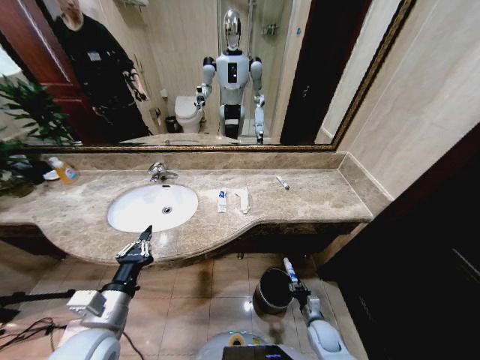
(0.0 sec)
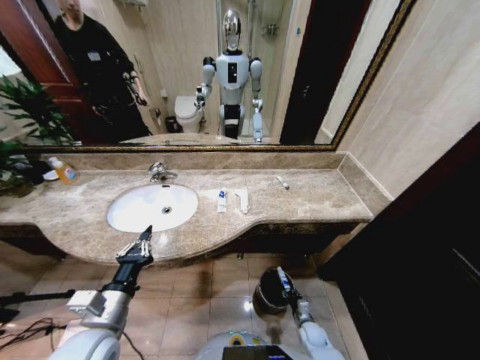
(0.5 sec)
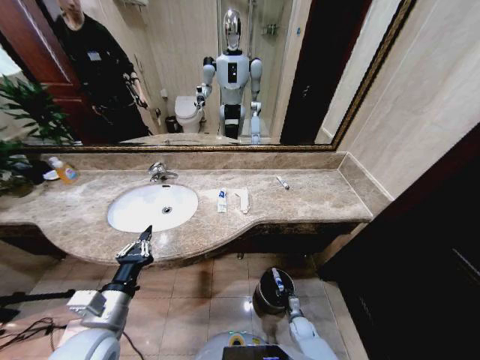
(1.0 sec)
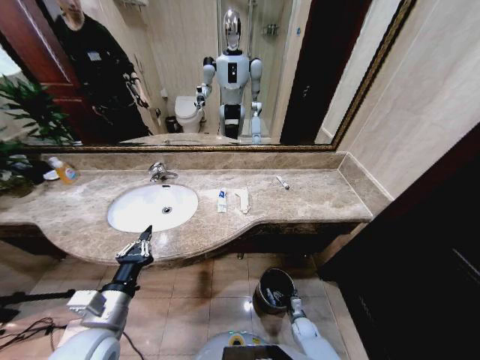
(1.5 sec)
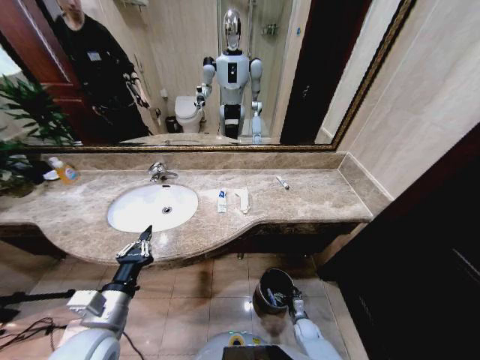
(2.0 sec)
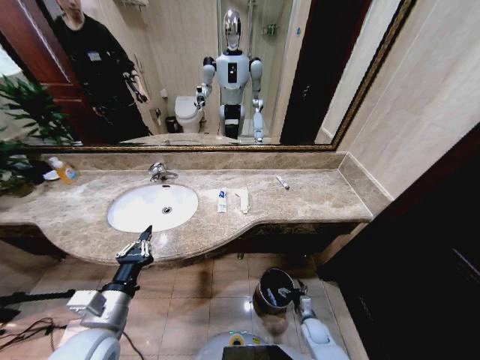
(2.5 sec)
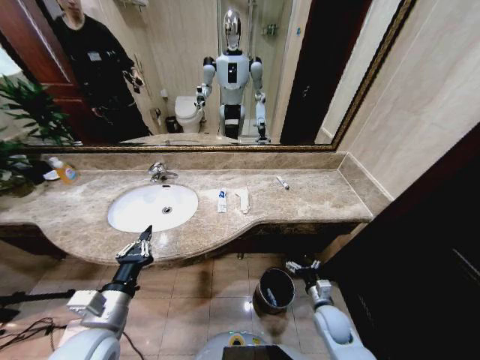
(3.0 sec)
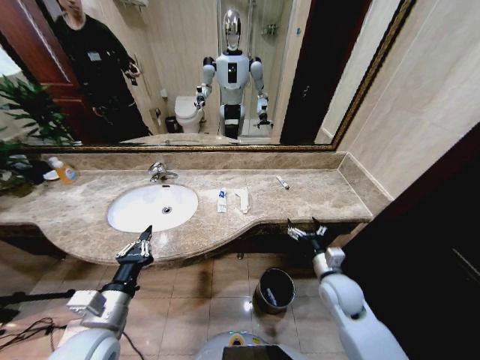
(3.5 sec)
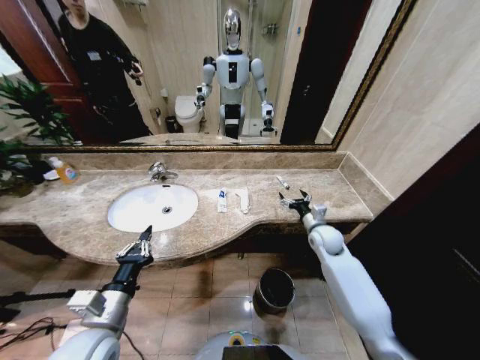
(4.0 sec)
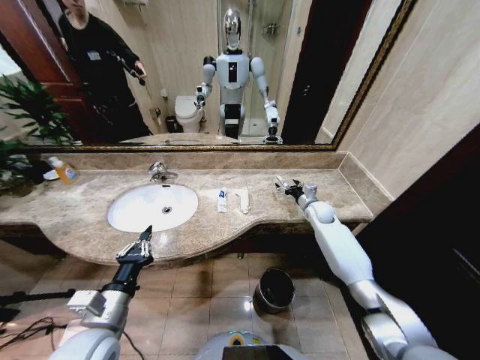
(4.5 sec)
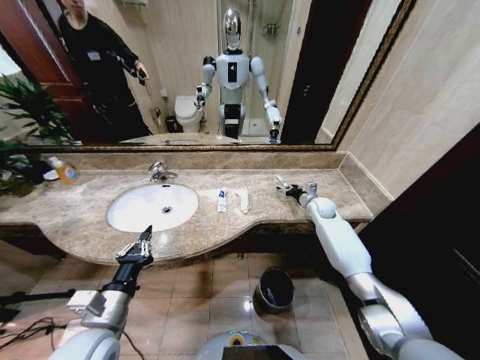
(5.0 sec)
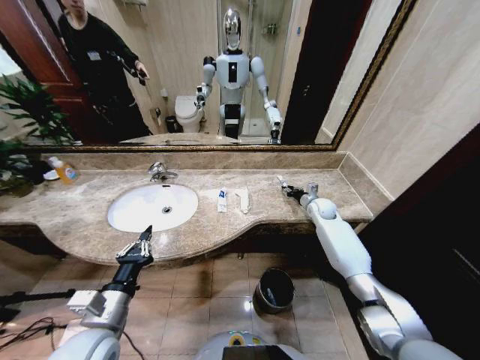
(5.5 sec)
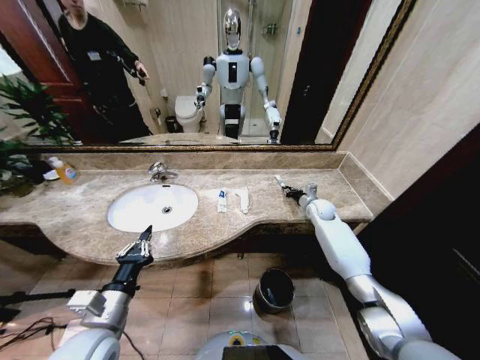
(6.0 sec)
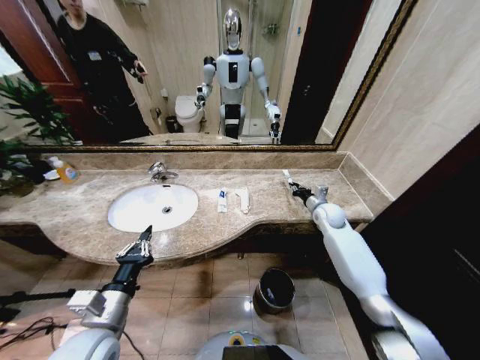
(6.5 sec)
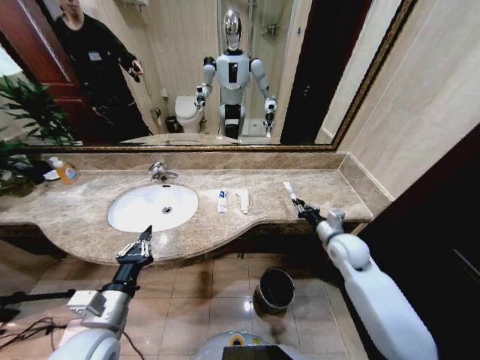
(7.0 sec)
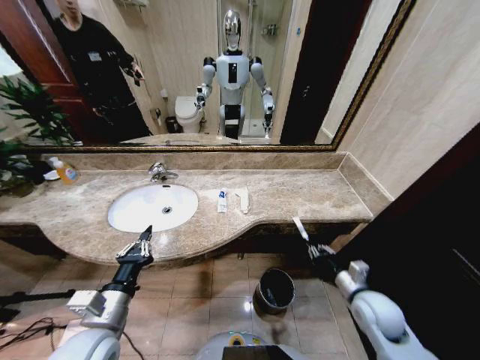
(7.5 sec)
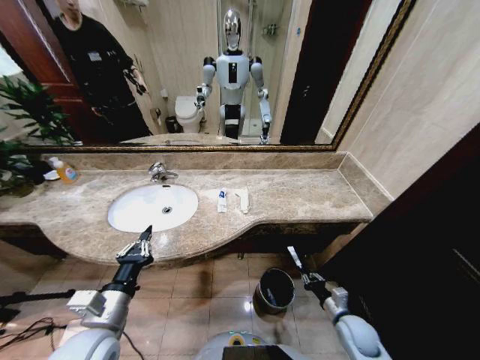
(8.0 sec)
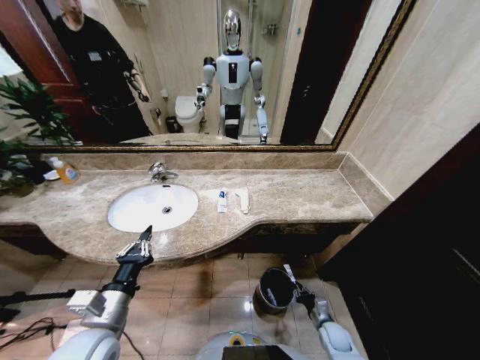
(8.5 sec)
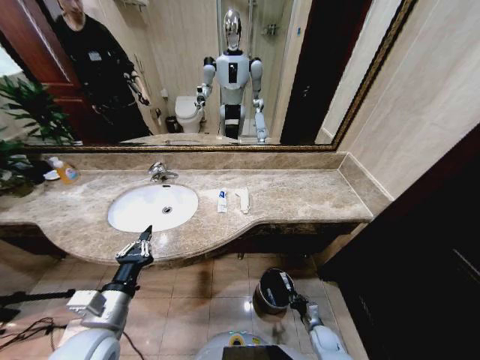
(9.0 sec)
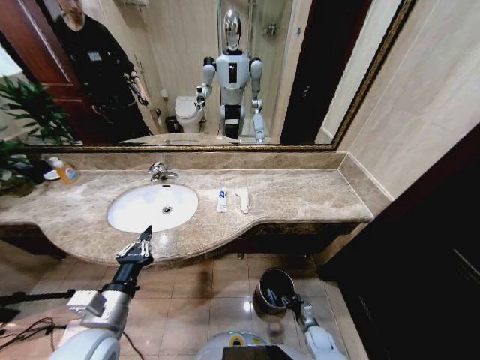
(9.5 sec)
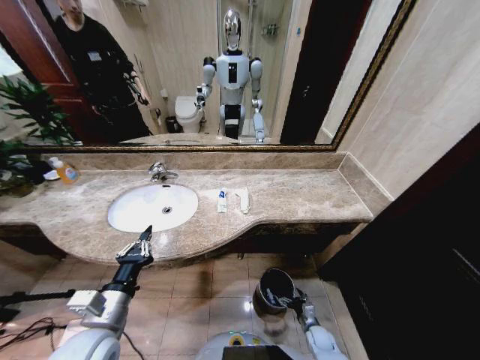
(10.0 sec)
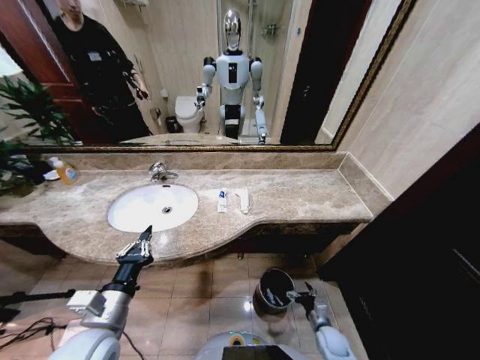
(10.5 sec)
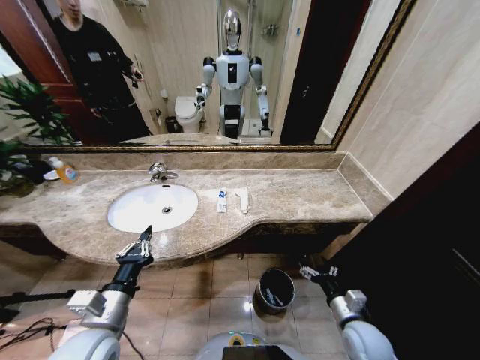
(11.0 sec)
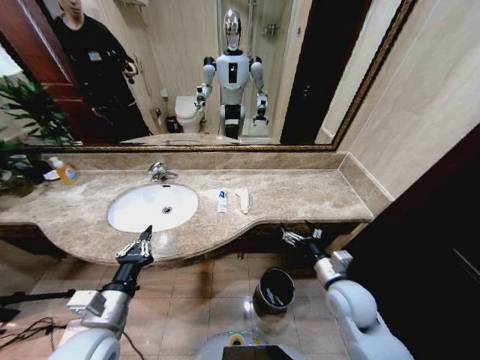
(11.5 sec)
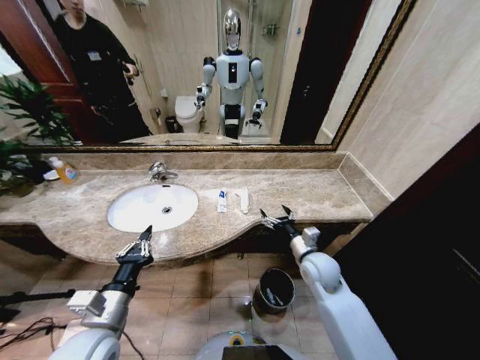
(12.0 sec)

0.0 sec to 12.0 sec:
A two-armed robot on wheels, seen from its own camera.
Task of the whole recording: Pick up the trash from the sink and place it in the trash bin.
0.0 sec to 2.0 sec: The right gripper goes roughly 10 cm downward, and opens.
2.0 sec to 4.0 sec: The right gripper is displaced upward and forward by approximately 40 cm.
4.0 sec to 6.0 sec: The right gripper heads forward, covering some 15 cm, and closes up.
6.0 sec to 8.0 sec: The right gripper travels backward and downward by about 40 cm.
8.0 sec to 10.0 sec: The right gripper shifts about 15 cm downward, and opens up.
10.0 sec to 12.0 sec: The right gripper is displaced upward by some 35 cm.

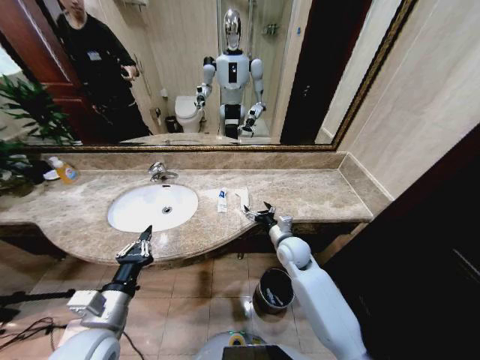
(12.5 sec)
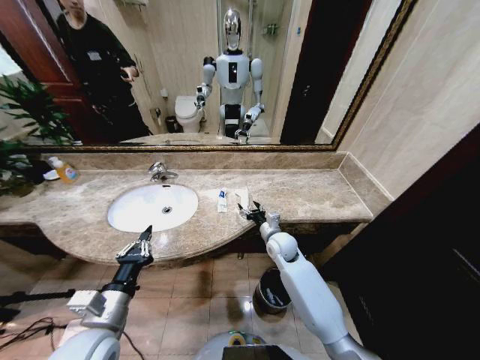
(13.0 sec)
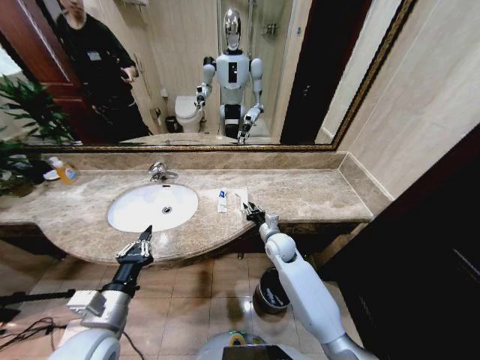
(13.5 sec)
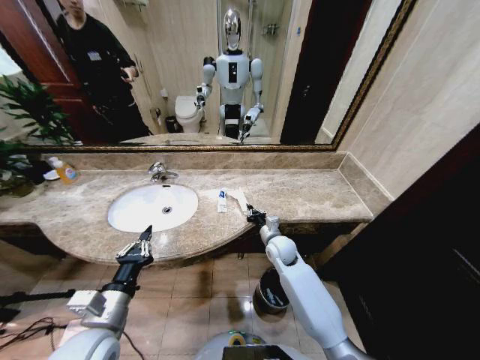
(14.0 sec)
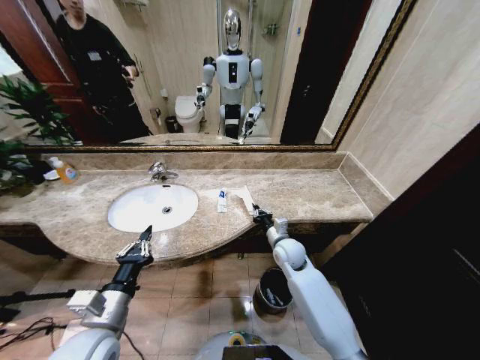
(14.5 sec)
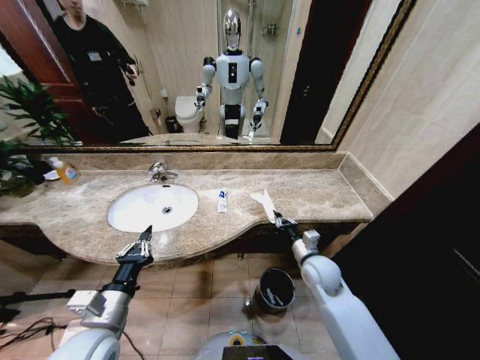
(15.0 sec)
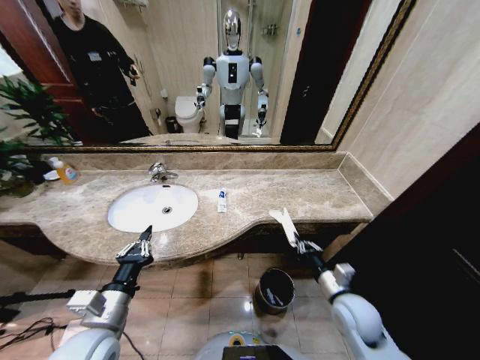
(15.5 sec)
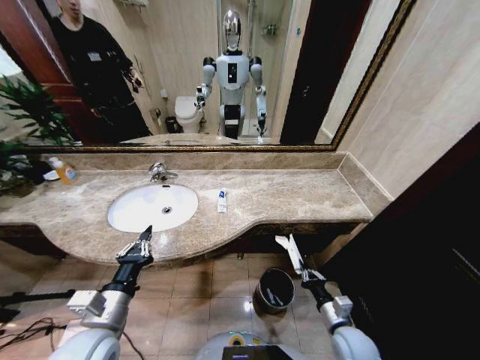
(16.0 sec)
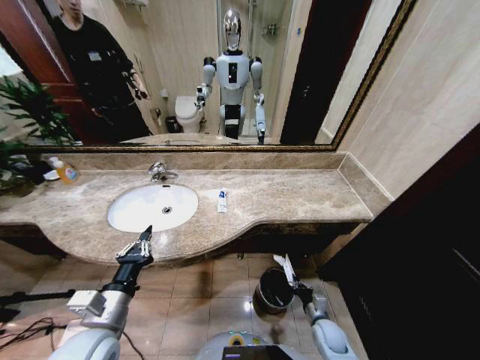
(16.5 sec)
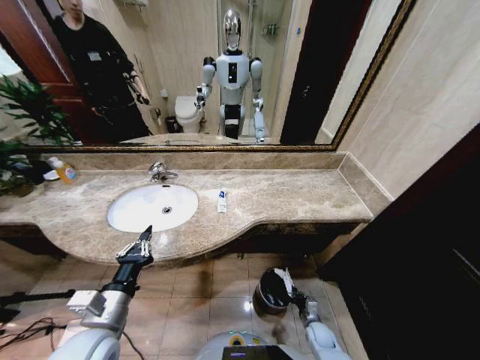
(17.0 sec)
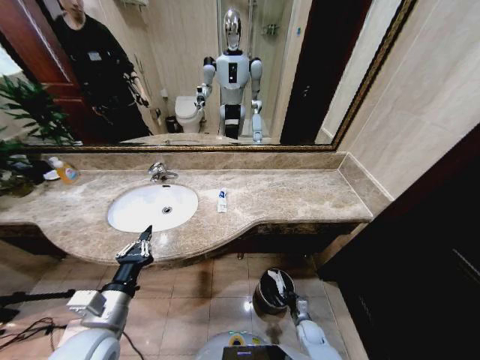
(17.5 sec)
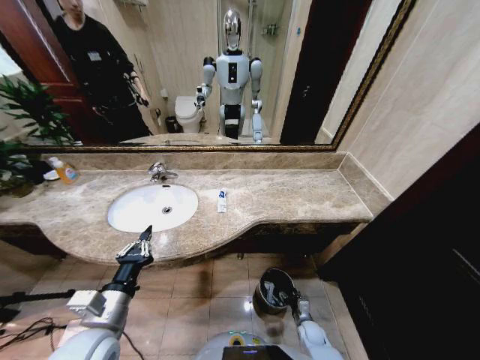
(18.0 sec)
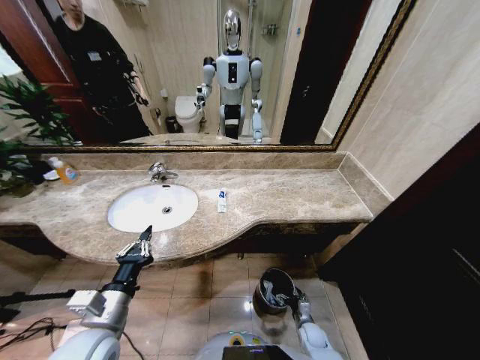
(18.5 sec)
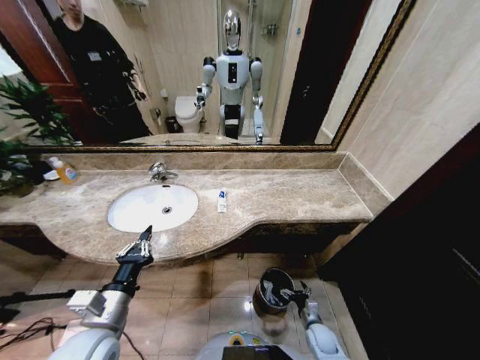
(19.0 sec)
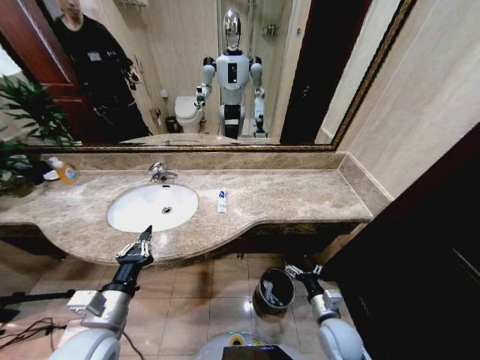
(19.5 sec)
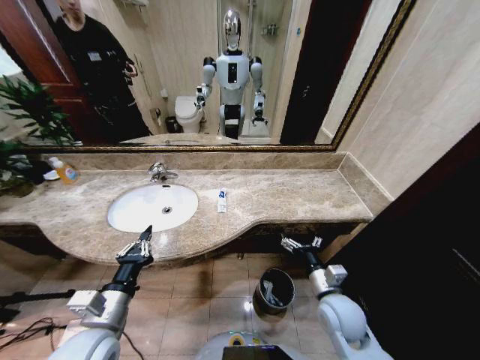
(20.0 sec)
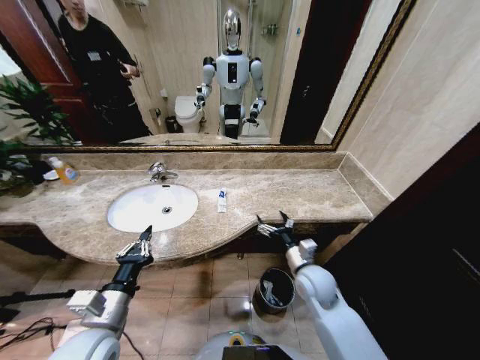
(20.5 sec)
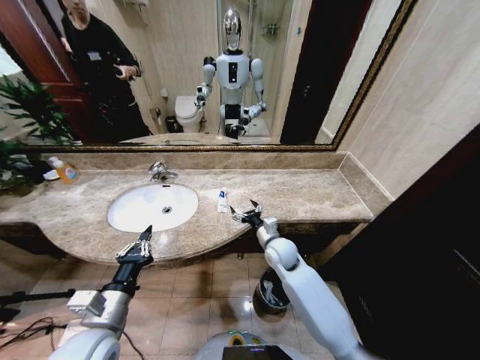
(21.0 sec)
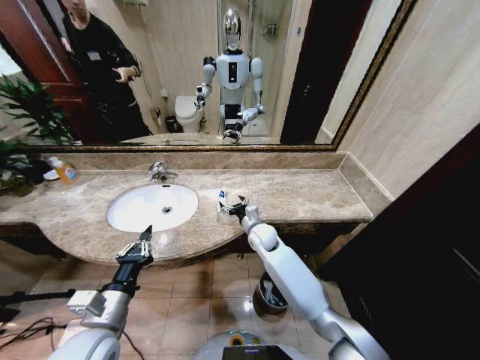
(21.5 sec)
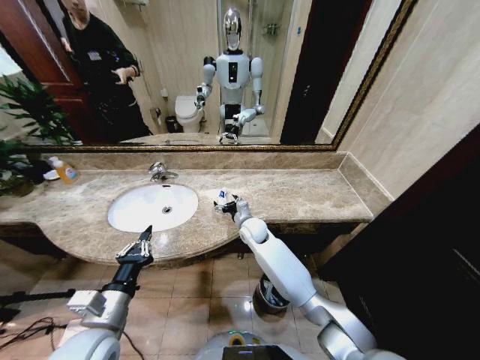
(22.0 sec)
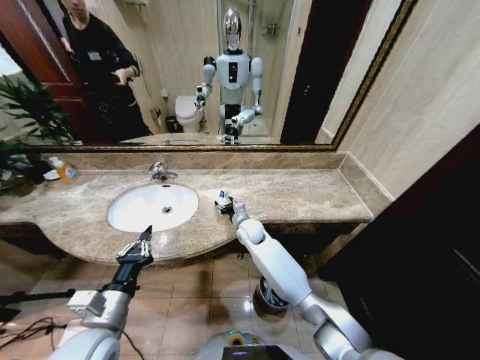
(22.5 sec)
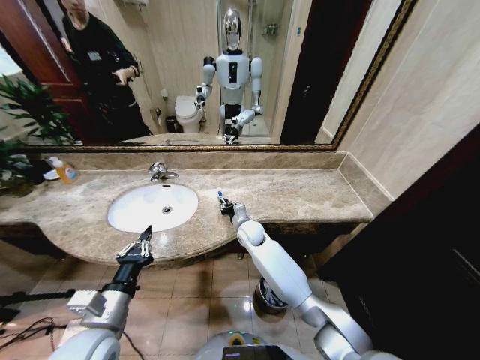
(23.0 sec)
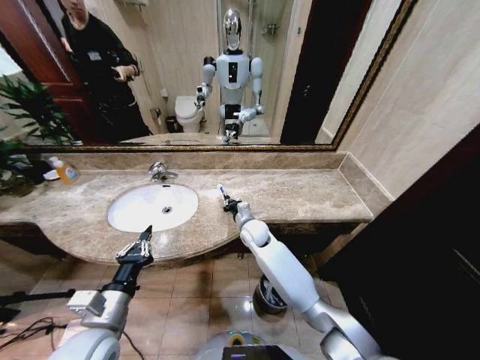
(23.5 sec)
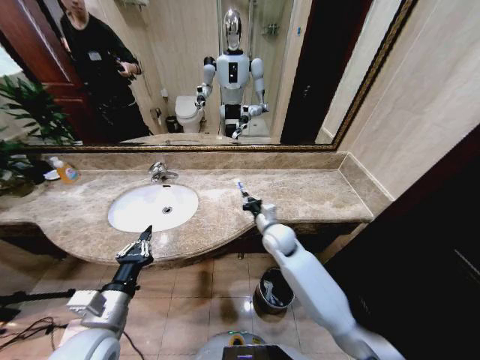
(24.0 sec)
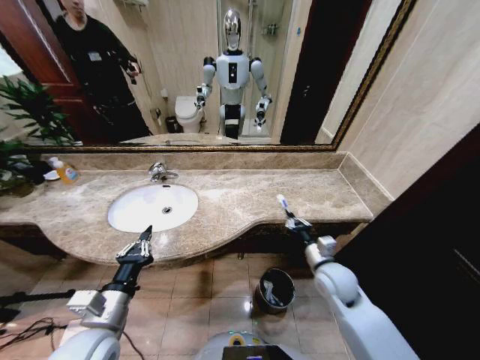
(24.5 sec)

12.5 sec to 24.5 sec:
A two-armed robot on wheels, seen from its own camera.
Task of the whole recording: Pick up the trash from the sink and place it in the trash bin.
12.5 sec to 14.5 sec: The right gripper closes its fingers.
14.5 sec to 16.5 sec: The right gripper moves downward, backward and to the right, about 30 cm.
16.5 sec to 18.5 sec: The right gripper goes approximately 10 cm downward, and opens up.
18.5 sec to 20.5 sec: The right gripper is displaced upward by about 30 cm.
20.5 sec to 22.5 sec: The right gripper moves forward and to the left, approximately 25 cm.
22.5 sec to 24.5 sec: The right gripper goes about 25 cm to the right and backward, and closes its fingers.

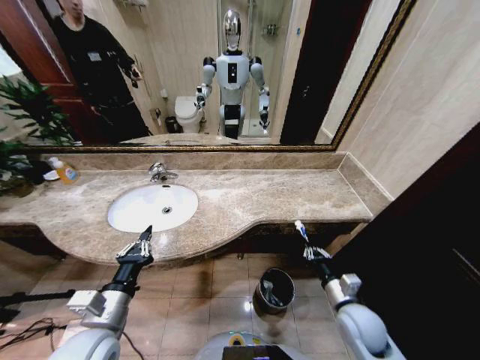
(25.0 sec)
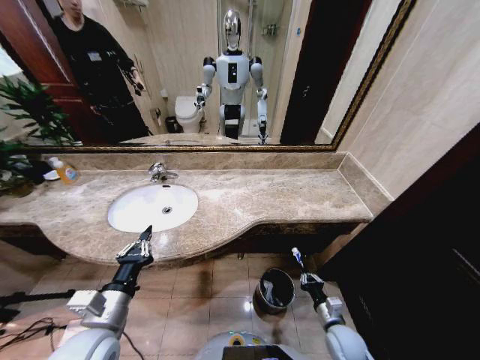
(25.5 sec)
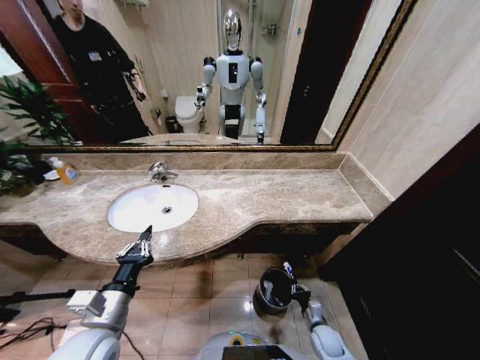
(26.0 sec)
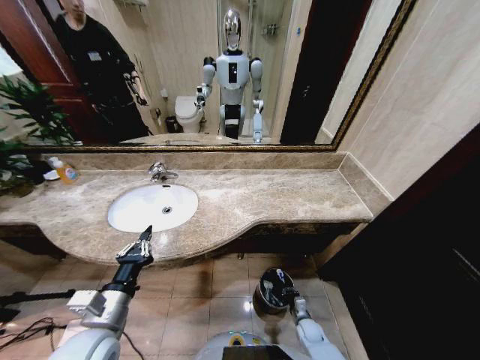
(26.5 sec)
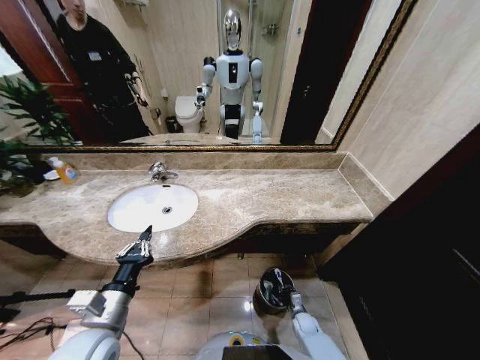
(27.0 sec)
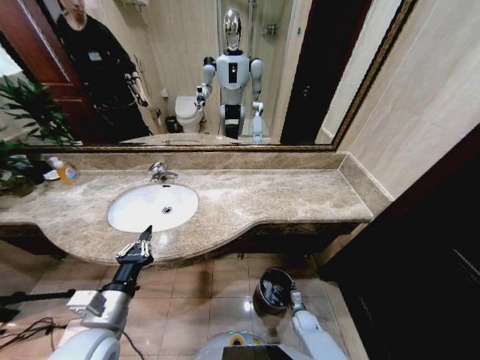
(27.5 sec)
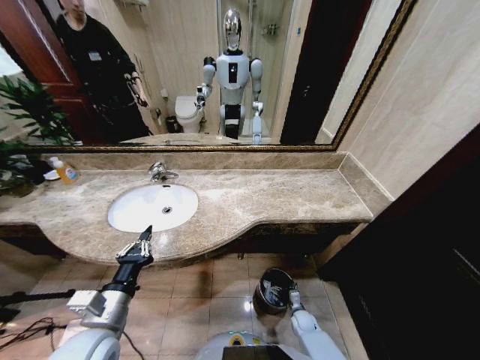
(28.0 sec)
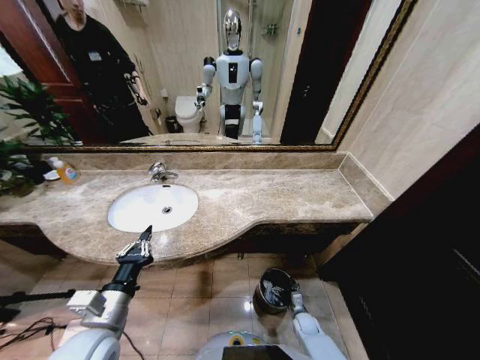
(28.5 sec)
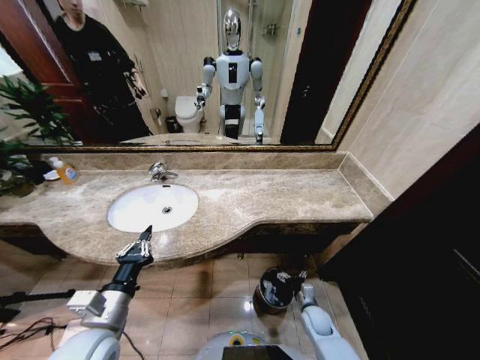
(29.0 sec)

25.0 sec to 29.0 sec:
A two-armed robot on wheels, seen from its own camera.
Task of the whole recording: Pick up the trash from the sink and place it in the trash bin.
25.0 sec to 27.0 sec: The right gripper is displaced downward by approximately 30 cm.
27.0 sec to 29.0 sec: The right gripper travels upward by approximately 10 cm, and opens its fingers.
